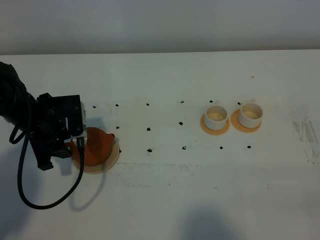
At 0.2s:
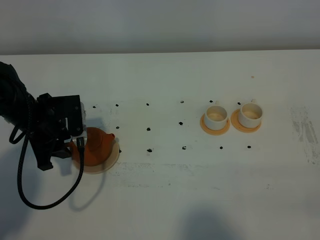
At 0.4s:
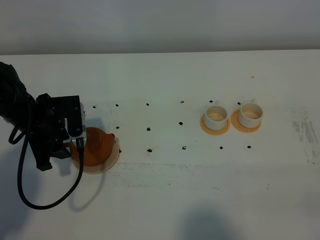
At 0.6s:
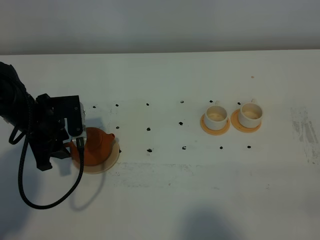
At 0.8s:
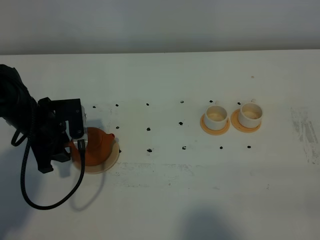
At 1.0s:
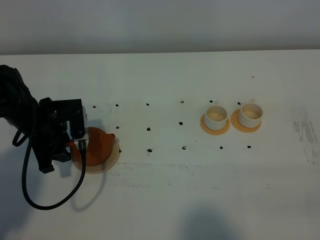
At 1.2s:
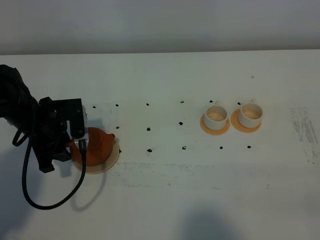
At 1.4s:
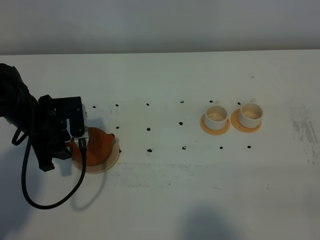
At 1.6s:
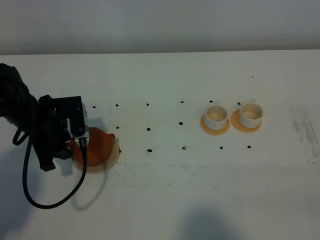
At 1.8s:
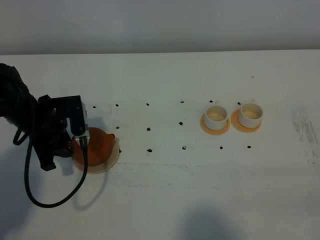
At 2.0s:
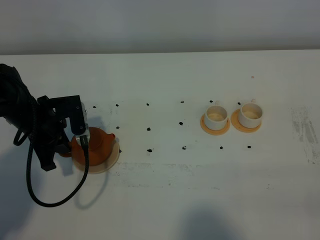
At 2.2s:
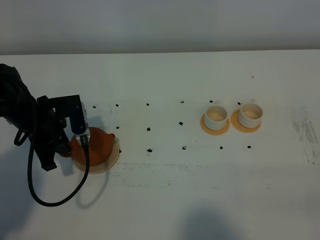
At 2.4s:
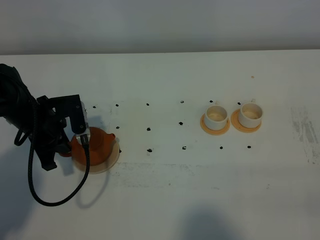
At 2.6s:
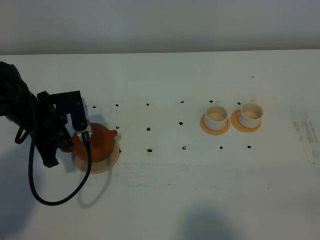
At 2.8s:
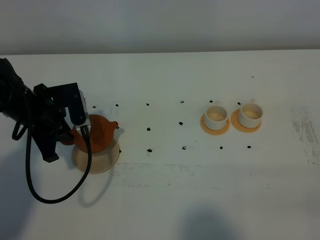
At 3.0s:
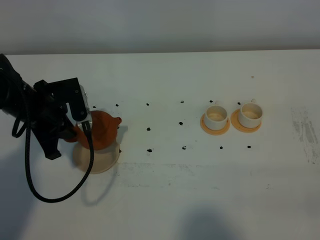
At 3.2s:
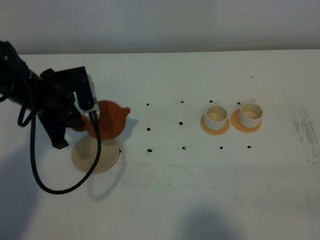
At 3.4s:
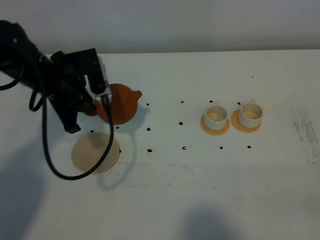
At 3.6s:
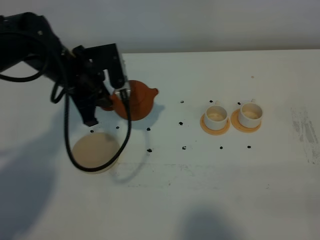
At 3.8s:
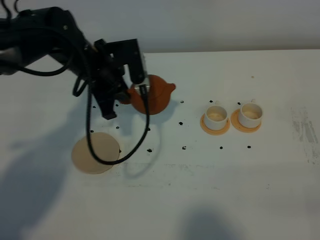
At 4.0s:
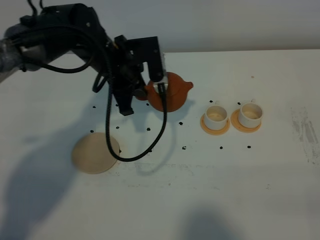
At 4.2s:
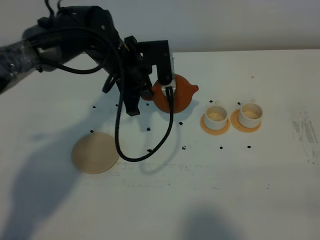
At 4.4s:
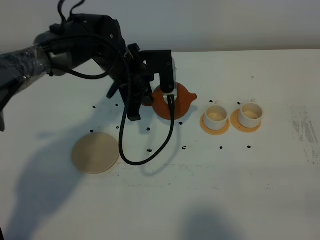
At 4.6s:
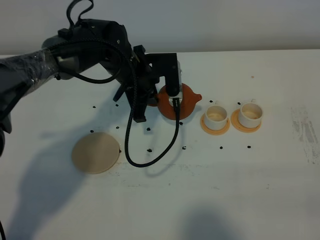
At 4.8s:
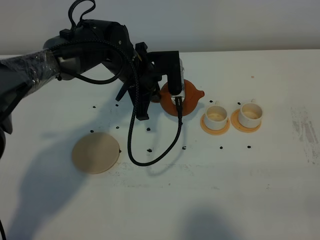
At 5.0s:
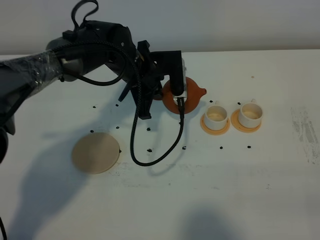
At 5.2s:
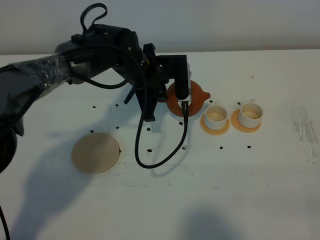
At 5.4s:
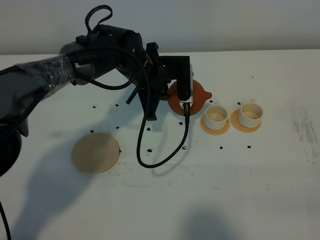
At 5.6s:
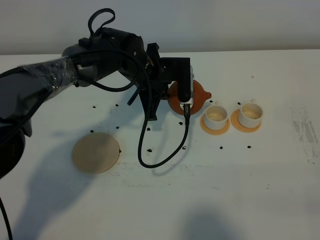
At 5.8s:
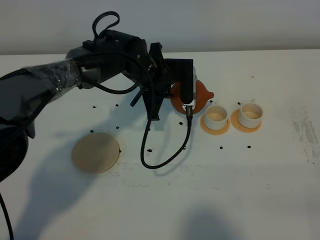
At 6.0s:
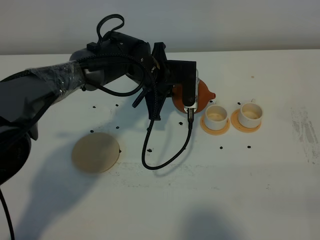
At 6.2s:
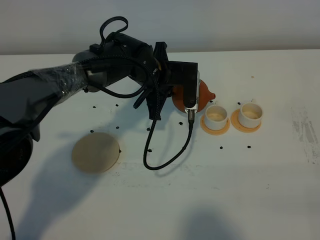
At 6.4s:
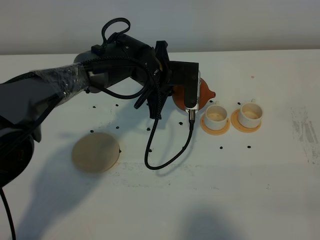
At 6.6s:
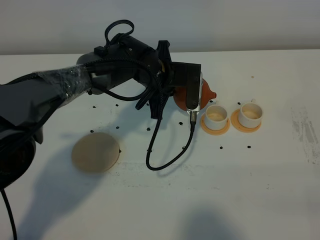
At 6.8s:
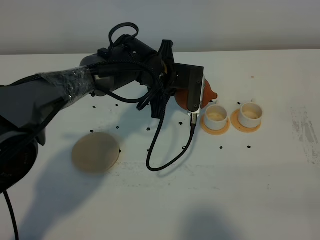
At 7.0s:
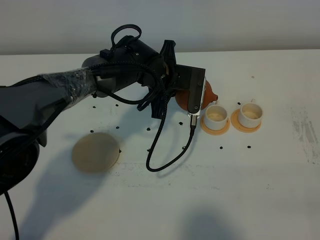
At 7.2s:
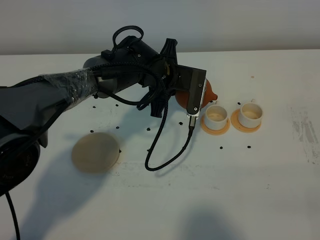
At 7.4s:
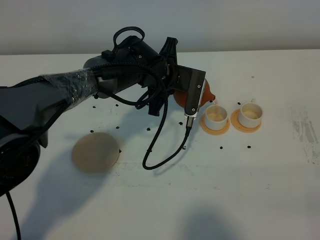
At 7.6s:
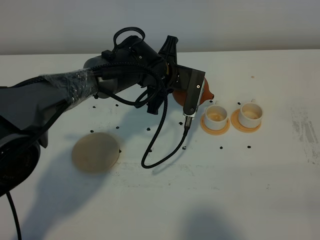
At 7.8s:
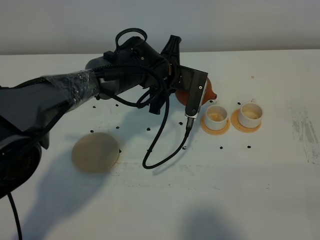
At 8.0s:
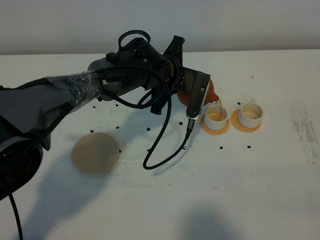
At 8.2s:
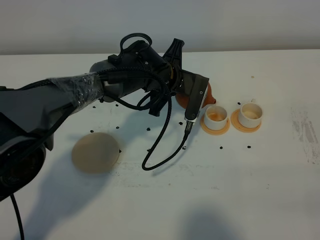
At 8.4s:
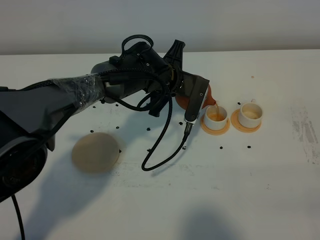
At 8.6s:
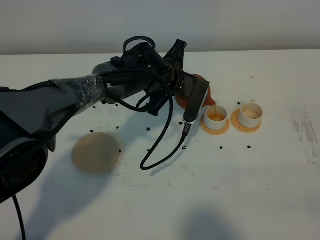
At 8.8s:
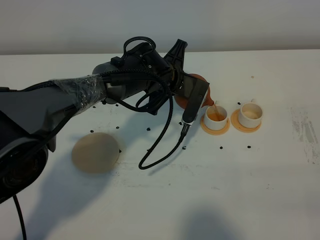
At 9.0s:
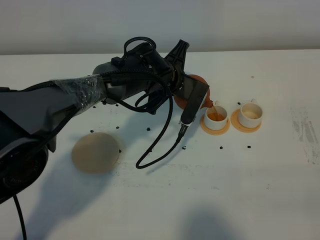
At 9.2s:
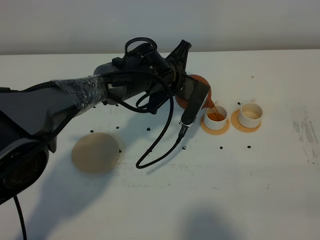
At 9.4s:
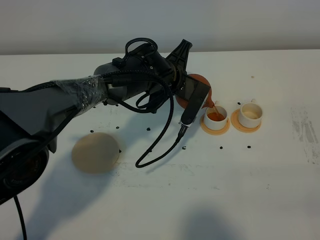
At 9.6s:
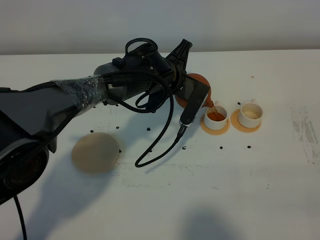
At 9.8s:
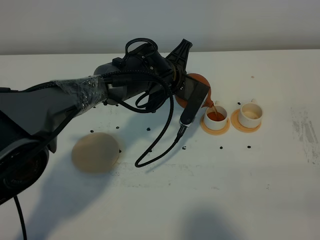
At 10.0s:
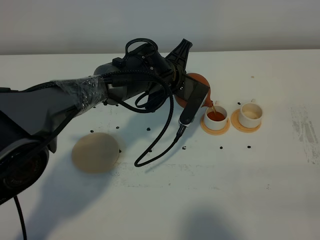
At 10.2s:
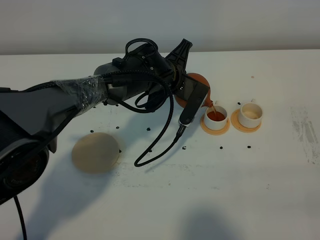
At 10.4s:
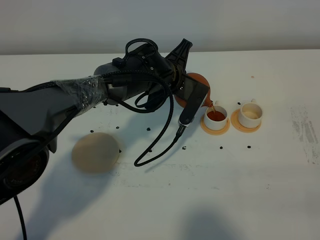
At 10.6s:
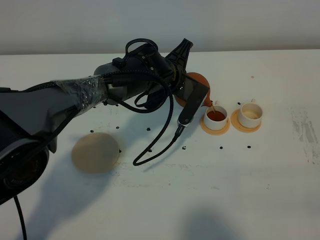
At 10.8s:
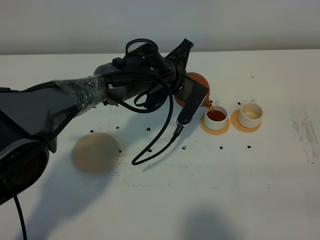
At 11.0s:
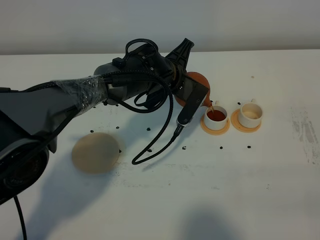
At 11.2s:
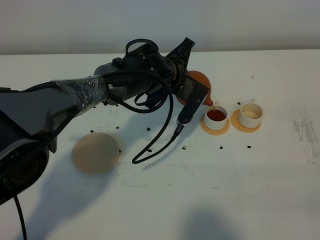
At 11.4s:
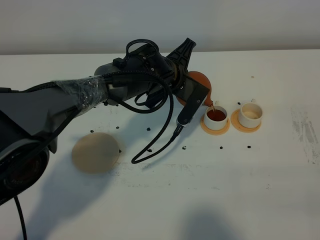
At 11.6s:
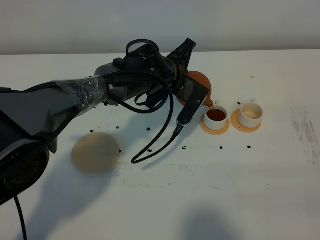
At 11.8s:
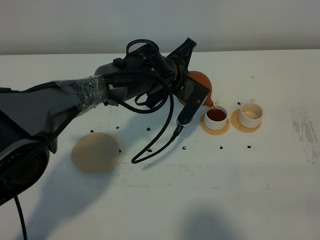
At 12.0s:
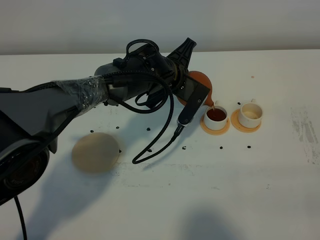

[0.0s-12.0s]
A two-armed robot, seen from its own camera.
Task of the whole recording: grasp the brown teapot and pour the tea into the two white teacups one by one, put the brown teapot back in its original place.
Step, 0.0s to 2.6s: Pick up the teapot with the left gripper.
0.0s to 1.6s: Neither gripper changes place.
1.6s to 3.0s: The left gripper closes.
3.0s to 4.4s: The left gripper travels to the right and forward by some 20 cm.
4.4s to 6.0s: The left gripper shifts by about 5 cm.
6.0s to 7.6s: The grippers make only small movements.
7.6s to 9.0s: The grippers stay close to where they were, moving slightly.
9.0s to 10.4s: Both grippers stay put.
10.4s to 12.0s: The two grippers keep their place.

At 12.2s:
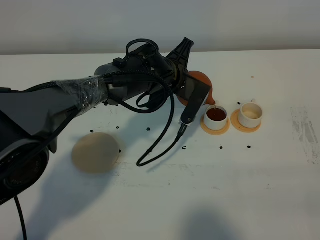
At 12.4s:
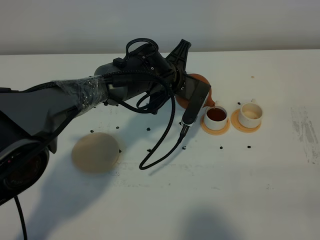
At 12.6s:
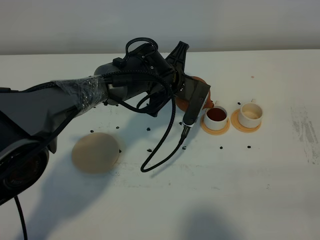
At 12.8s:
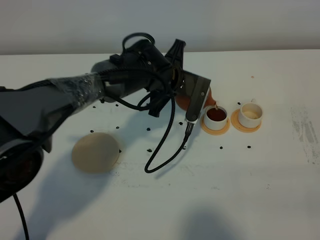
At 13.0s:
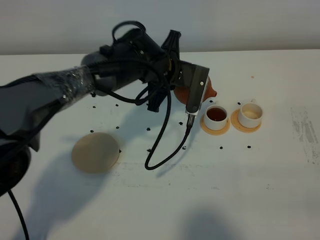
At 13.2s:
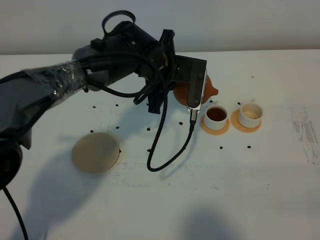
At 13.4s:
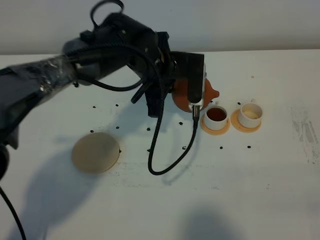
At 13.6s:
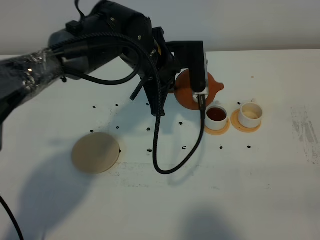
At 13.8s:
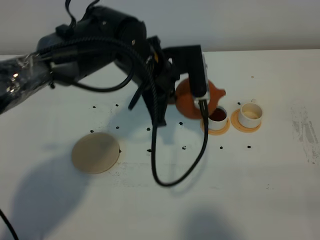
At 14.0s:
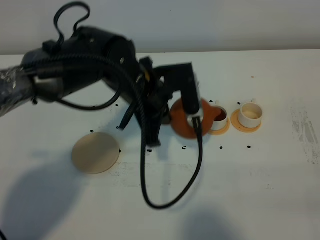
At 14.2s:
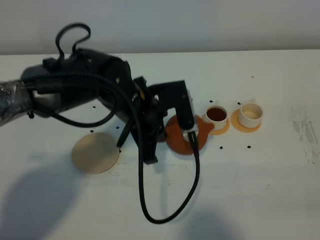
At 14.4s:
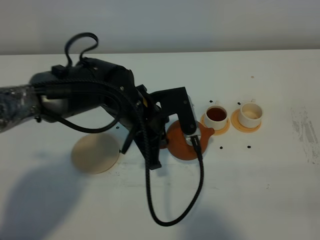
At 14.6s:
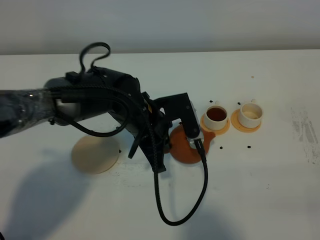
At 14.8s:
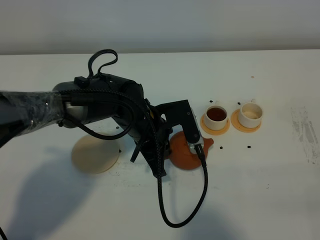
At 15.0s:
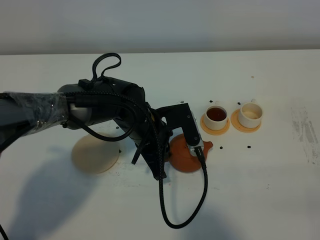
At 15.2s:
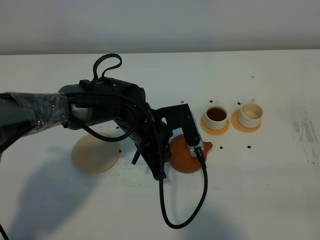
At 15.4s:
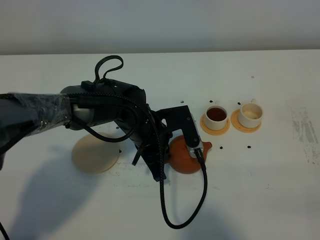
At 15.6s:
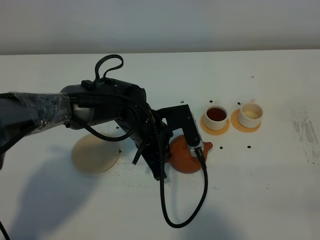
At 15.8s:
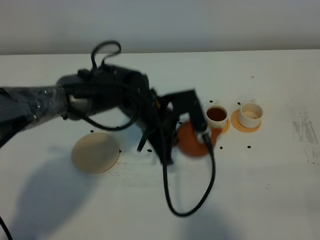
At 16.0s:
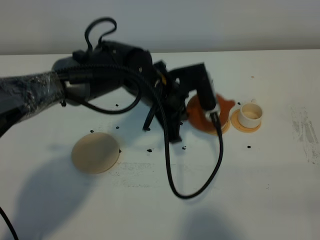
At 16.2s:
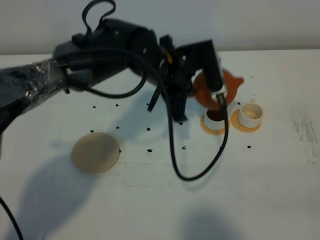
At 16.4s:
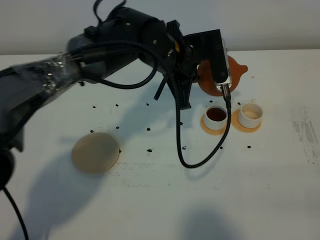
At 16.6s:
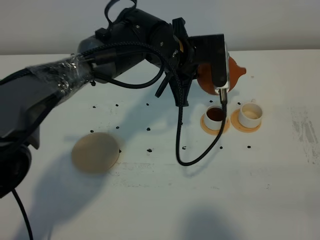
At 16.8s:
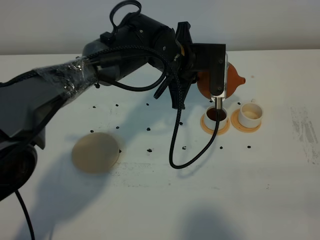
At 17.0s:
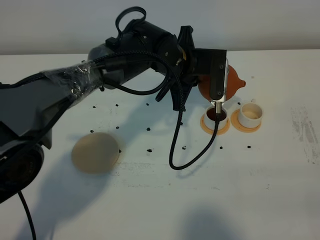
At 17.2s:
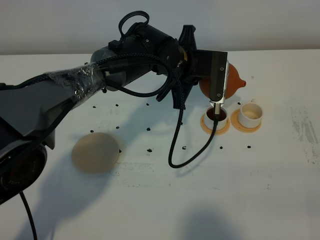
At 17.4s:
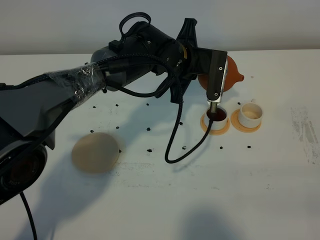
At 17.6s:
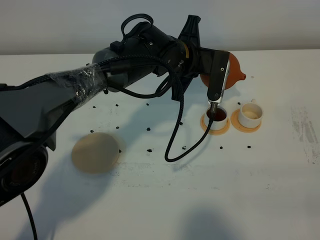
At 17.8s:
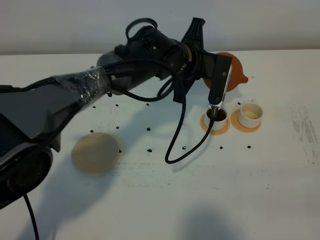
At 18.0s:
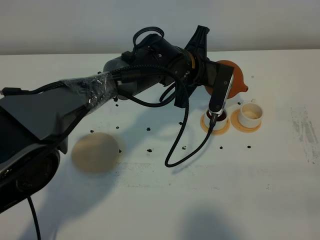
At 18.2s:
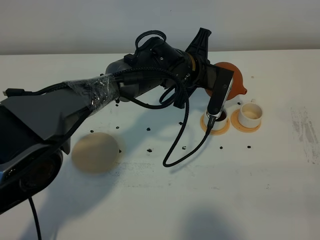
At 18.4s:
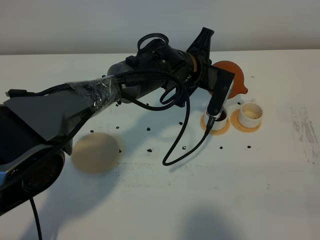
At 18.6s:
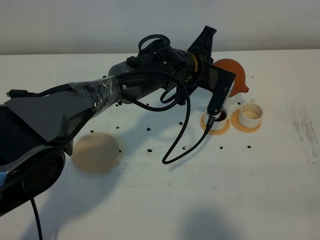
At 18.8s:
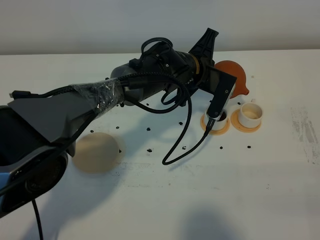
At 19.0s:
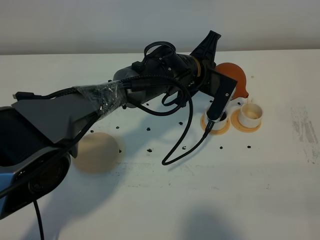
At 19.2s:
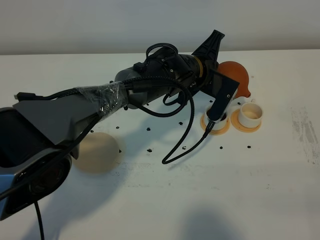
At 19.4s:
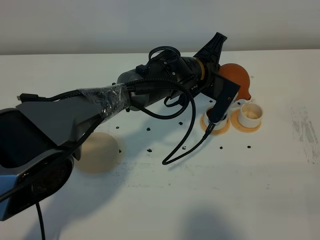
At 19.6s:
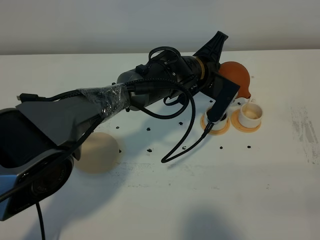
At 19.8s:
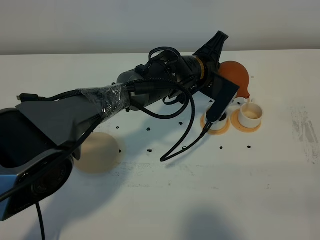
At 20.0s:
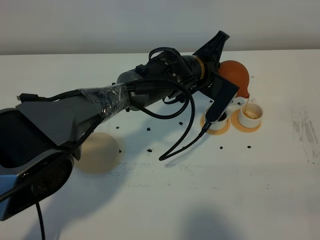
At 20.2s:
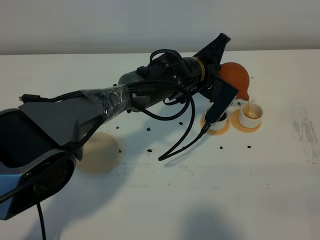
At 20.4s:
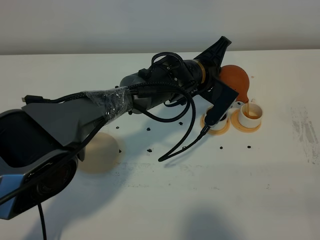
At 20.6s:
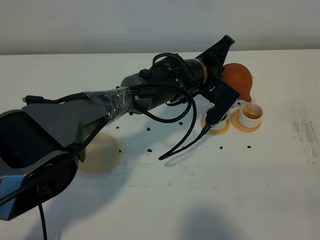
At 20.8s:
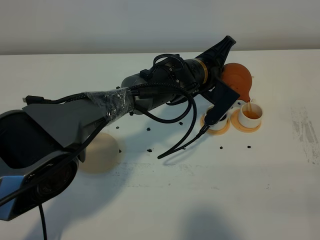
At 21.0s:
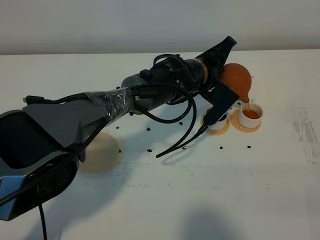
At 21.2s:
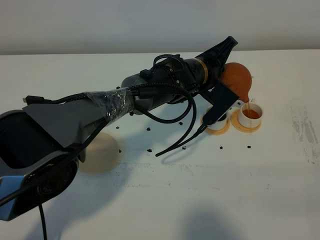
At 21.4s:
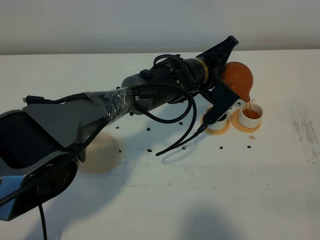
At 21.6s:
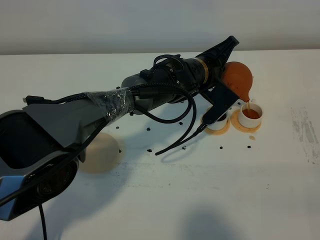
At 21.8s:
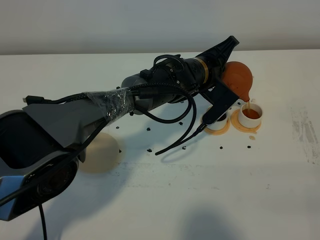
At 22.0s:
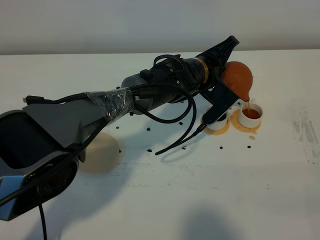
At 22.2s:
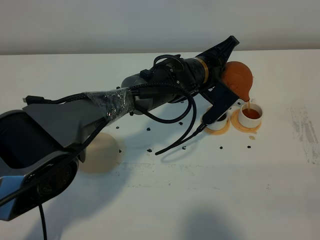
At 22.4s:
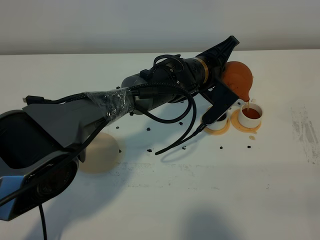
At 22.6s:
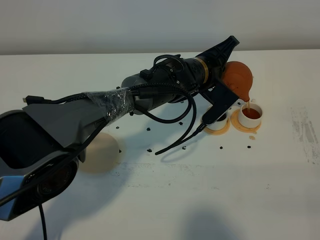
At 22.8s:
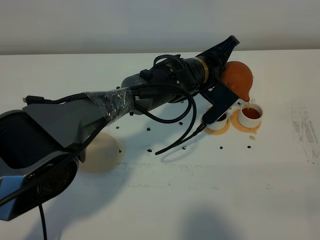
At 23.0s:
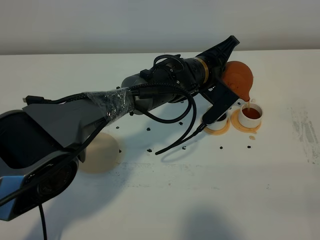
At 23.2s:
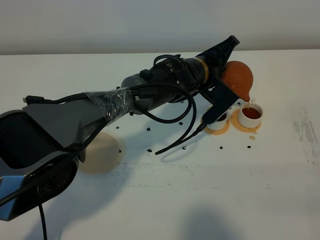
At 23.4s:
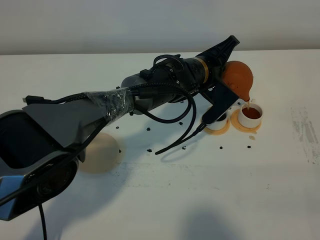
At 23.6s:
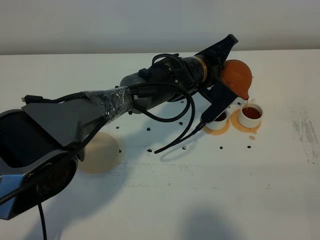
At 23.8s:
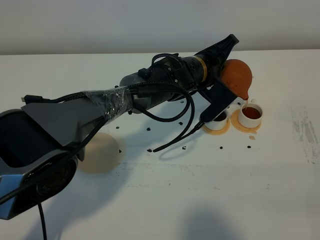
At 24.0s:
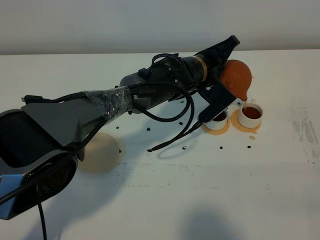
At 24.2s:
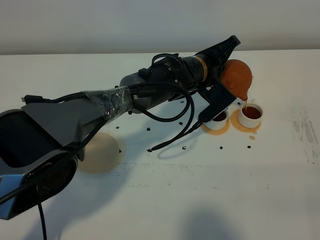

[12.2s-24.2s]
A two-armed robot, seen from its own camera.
Task of the whole recording: grasp the brown teapot and pour the tea into the two white teacups one by one, put the brown teapot back in its original place.
12.2s to 13.8s: The left gripper is displaced upward and backward by about 10 cm.
13.8s to 15.2s: The left gripper heads downward, covering some 10 cm.
15.2s to 16.6s: The left gripper goes approximately 15 cm upward, forward and to the right.
16.6s to 18.2s: The left gripper changes place by roughly 5 cm.
18.2s to 19.8s: There are only small adjustments of the grippers.
19.8s to 21.2s: The grippers stay close to where they were, moving slightly.
21.2s to 22.6s: Neither gripper changes place.
22.6s to 24.2s: Neither gripper changes place.
